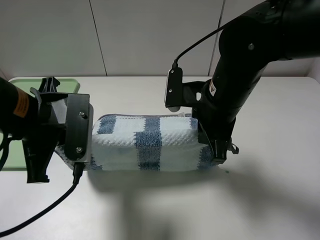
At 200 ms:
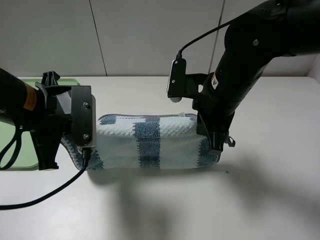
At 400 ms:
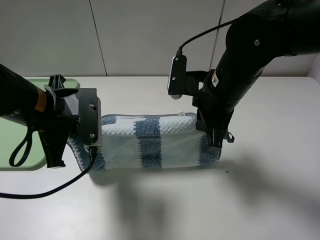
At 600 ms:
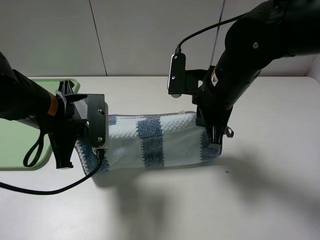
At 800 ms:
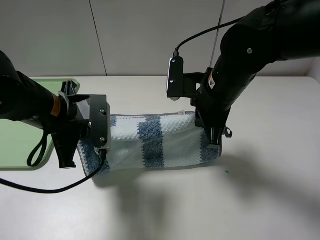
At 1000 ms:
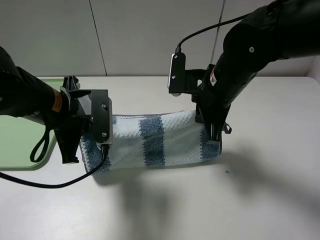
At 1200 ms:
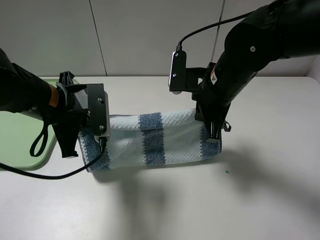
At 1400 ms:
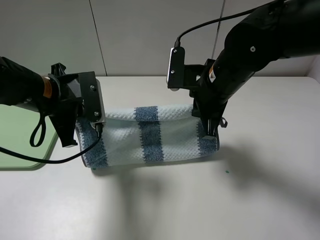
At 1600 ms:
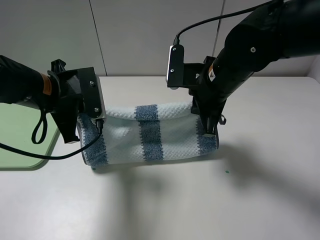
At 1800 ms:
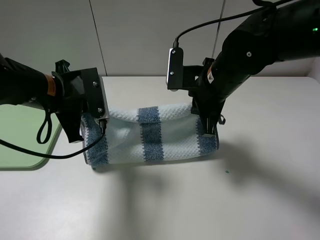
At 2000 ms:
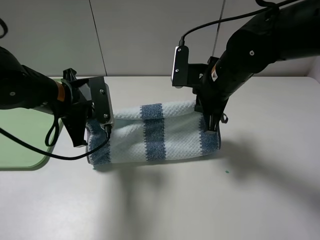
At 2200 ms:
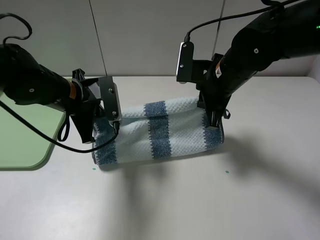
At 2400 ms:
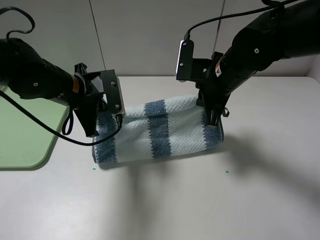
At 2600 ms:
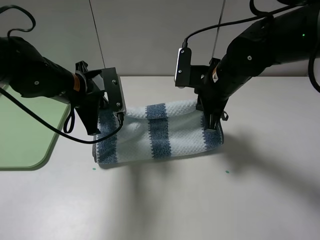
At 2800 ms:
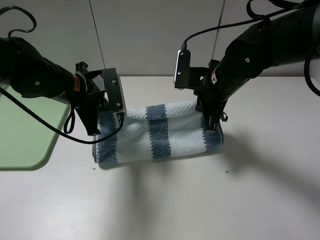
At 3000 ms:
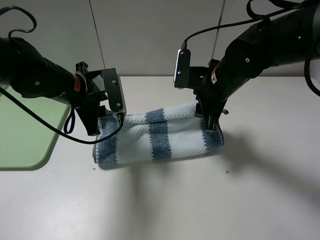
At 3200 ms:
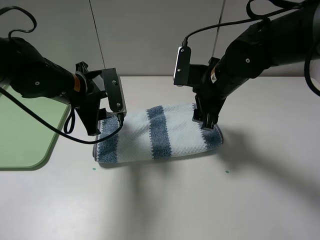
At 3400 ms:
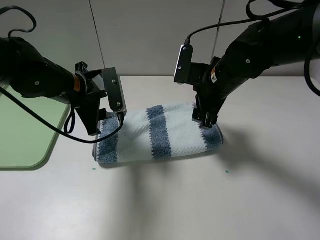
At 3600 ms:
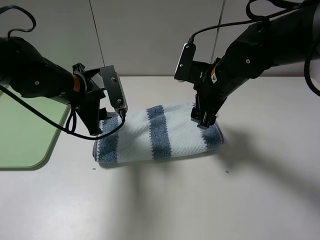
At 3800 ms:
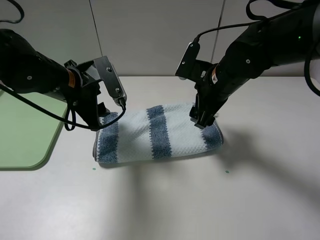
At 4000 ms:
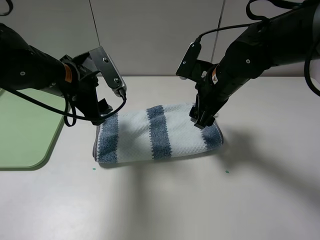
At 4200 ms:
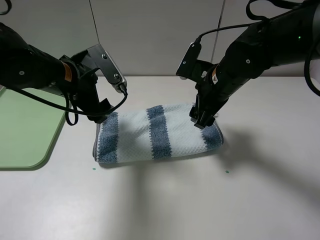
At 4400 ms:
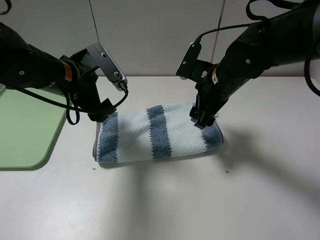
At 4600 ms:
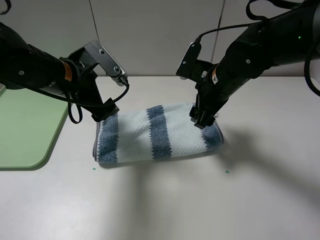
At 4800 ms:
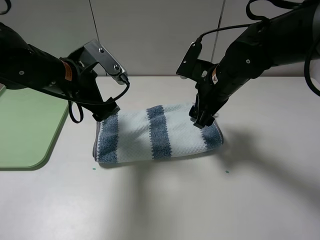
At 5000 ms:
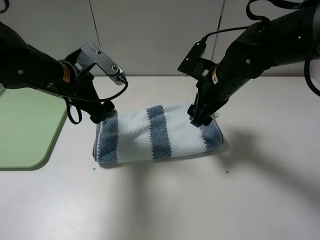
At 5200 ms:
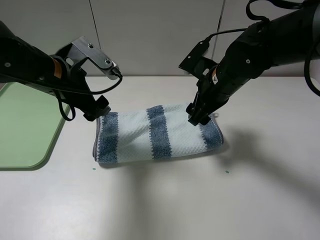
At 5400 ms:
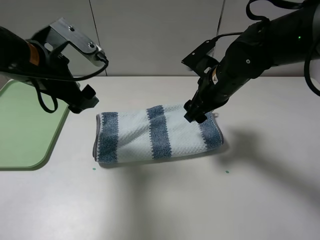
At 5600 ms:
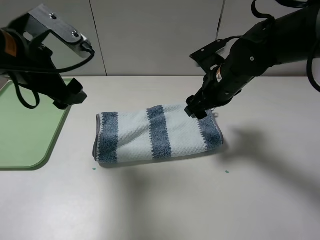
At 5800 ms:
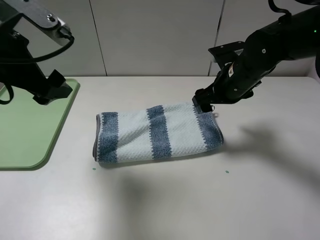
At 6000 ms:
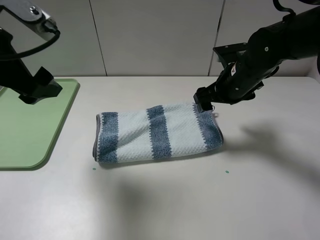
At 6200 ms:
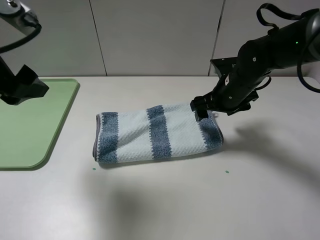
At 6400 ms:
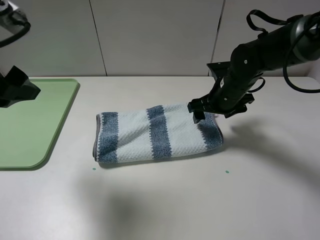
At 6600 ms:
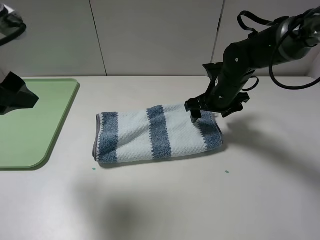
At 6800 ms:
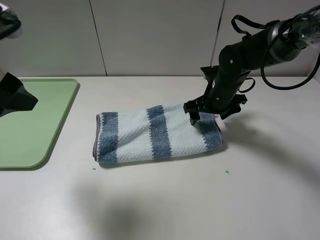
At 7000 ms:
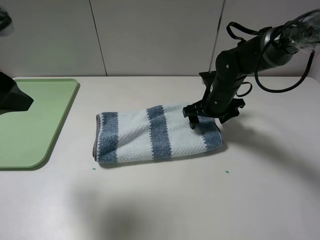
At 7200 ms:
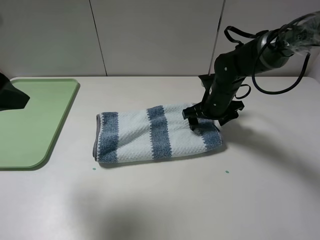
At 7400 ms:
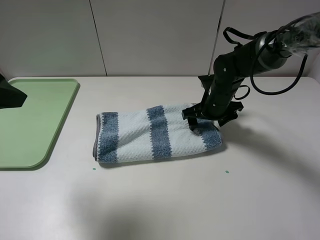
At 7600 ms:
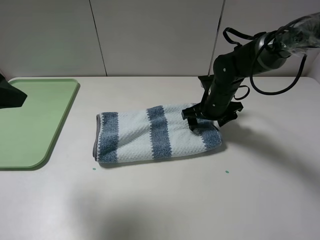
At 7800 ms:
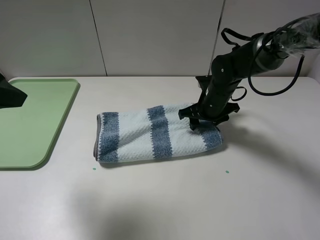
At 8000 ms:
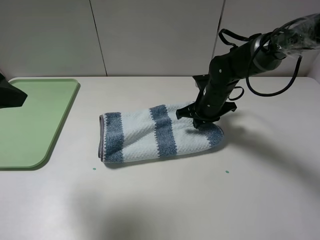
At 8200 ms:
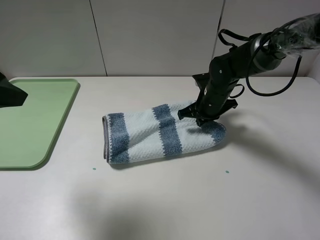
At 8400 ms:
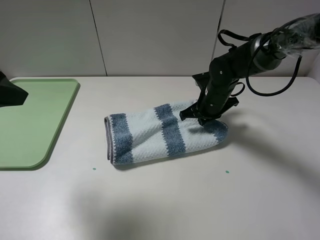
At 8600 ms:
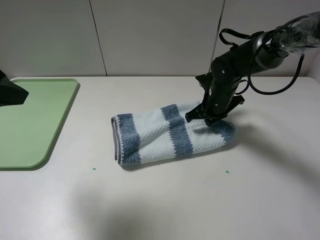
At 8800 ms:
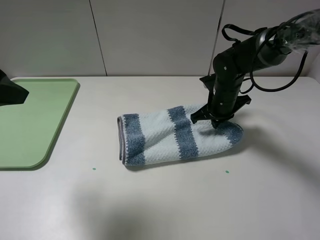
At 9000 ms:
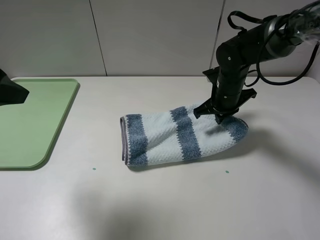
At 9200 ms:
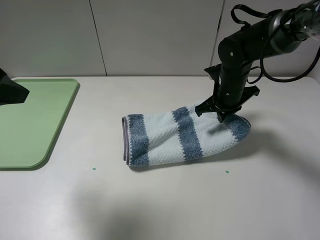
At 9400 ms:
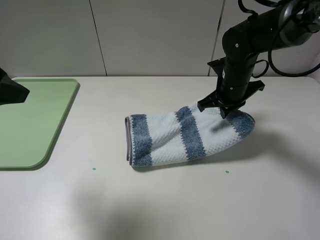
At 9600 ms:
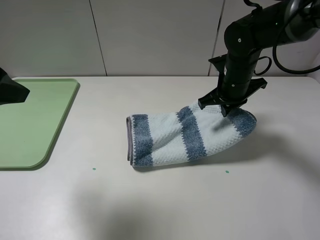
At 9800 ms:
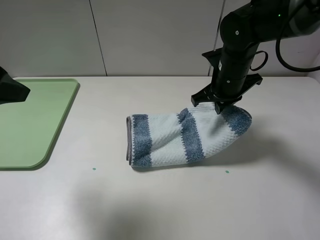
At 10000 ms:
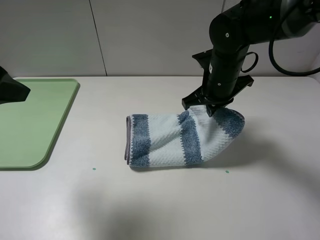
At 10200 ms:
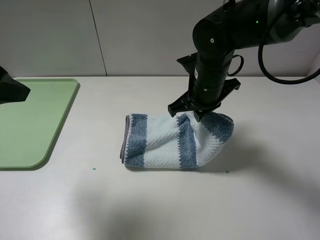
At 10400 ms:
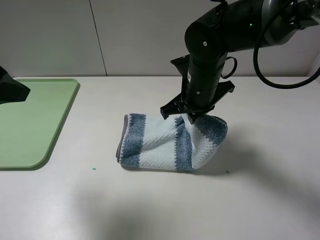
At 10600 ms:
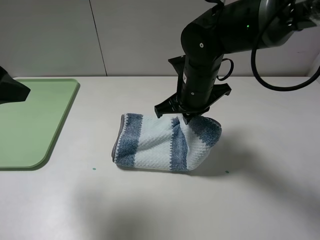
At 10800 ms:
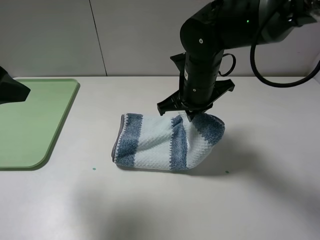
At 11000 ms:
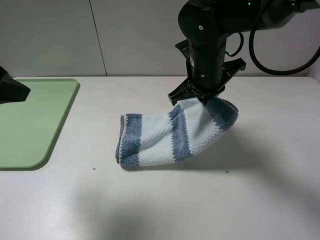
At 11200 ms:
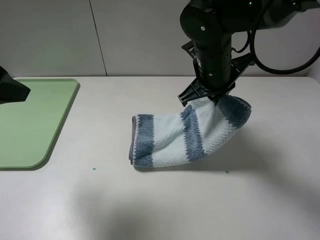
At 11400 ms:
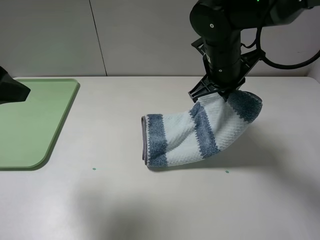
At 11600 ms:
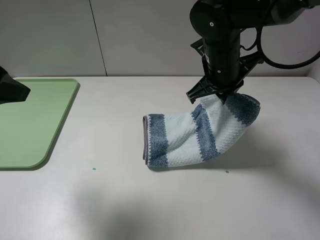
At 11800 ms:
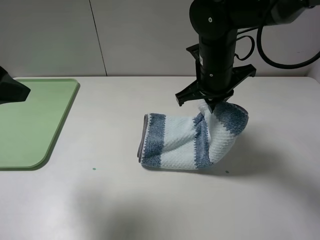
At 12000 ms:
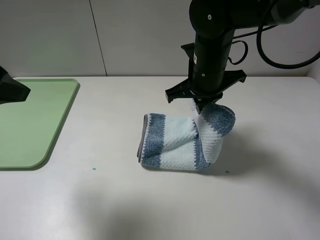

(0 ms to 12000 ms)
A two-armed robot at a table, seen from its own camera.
Step, 0 ms - 3200 ms: Fold the blue white towel upwards with the left gripper.
Step, 3400 ms - 8600 ms: Grasp the blue white towel with the right gripper.
0 ms - 1600 ms: The left gripper moves forward, some 5 cm.
1600 ms - 3000 ms: The left gripper changes place by some 5 cm, and opens up. The right gripper opens up.
3000 ms - 4400 ms: The left gripper opens.
4400 ms - 6000 ms: The left gripper moves upward, backward and to the left, roughly 15 cm.
6000 ms - 7600 ms: The left gripper changes place by approximately 5 cm. Meanwhile the right gripper goes roughly 10 cm downward.
7600 ms - 9000 ms: The right gripper closes up.
9000 ms - 10400 ms: The right gripper goes approximately 10 cm to the left, backward and upward.
10400 ms - 12000 ms: There are only small adjustments of the grippers.

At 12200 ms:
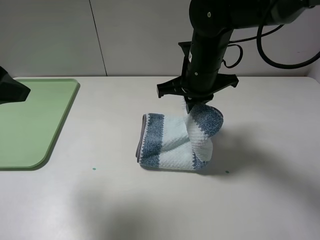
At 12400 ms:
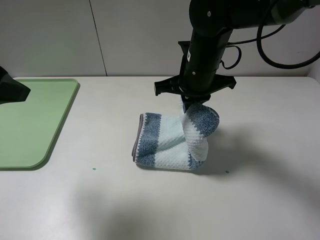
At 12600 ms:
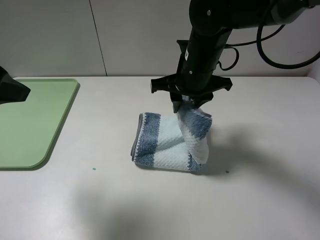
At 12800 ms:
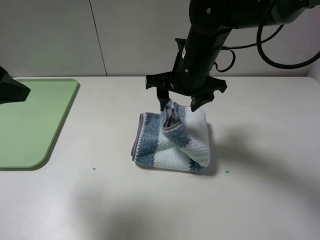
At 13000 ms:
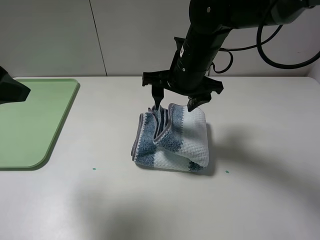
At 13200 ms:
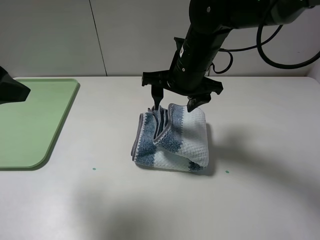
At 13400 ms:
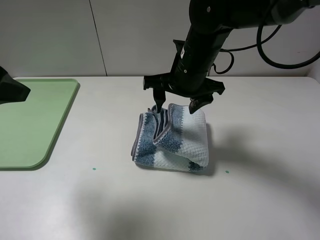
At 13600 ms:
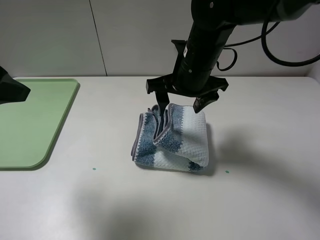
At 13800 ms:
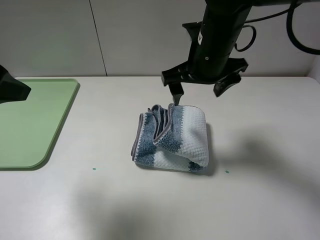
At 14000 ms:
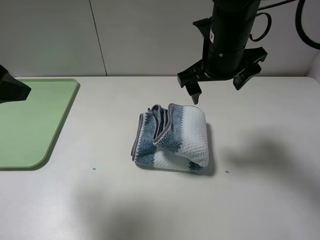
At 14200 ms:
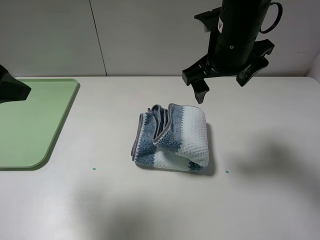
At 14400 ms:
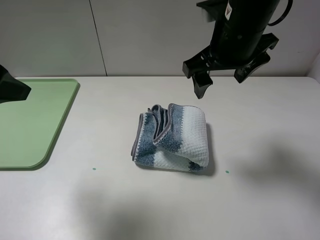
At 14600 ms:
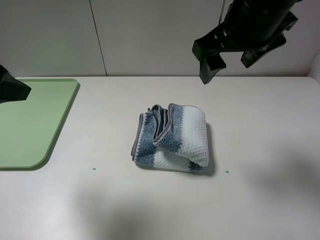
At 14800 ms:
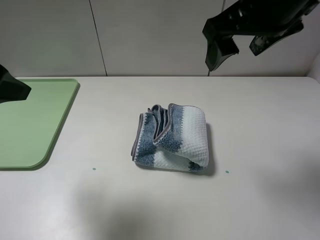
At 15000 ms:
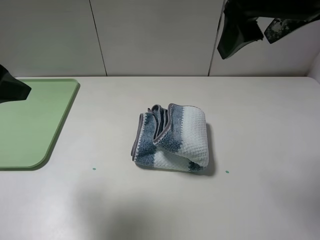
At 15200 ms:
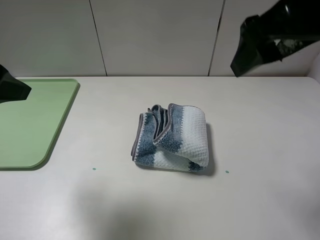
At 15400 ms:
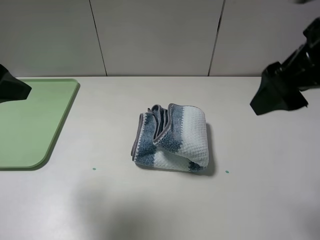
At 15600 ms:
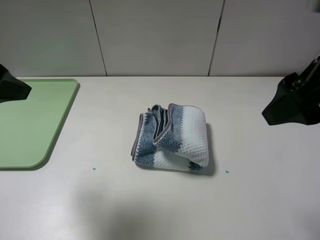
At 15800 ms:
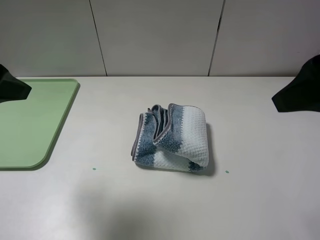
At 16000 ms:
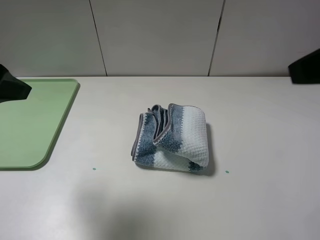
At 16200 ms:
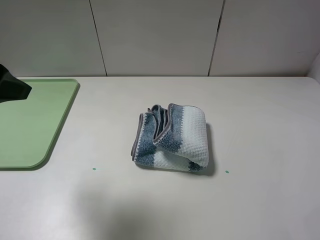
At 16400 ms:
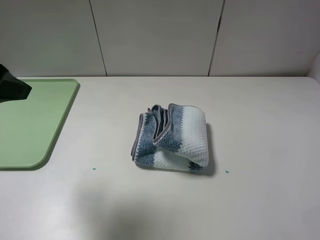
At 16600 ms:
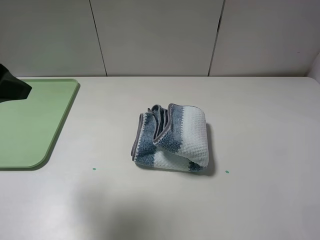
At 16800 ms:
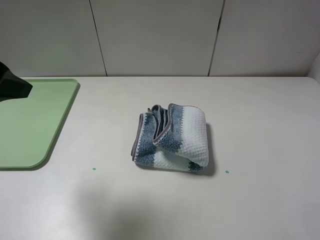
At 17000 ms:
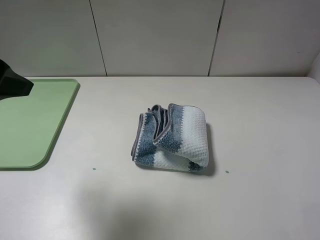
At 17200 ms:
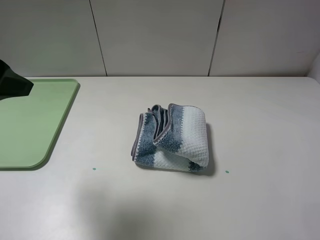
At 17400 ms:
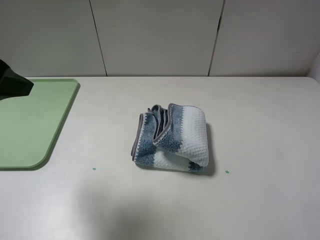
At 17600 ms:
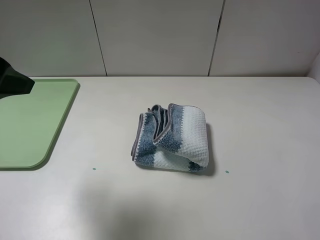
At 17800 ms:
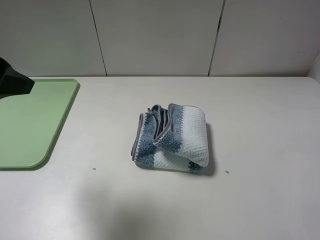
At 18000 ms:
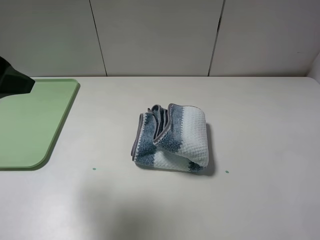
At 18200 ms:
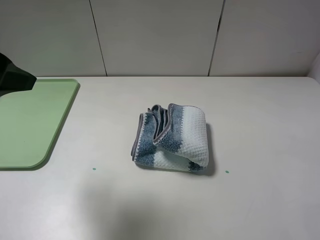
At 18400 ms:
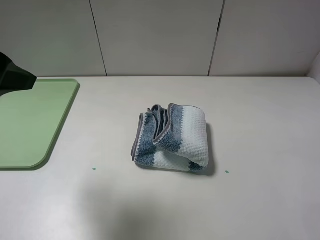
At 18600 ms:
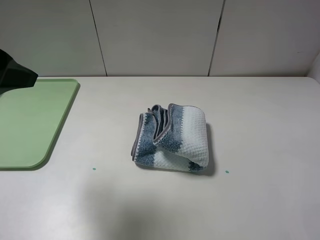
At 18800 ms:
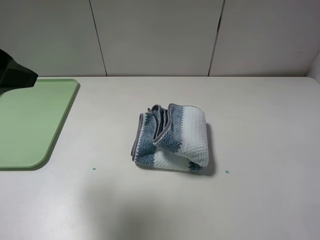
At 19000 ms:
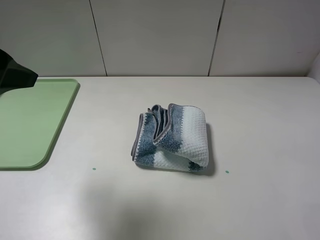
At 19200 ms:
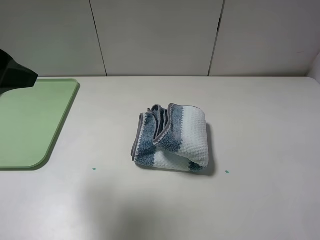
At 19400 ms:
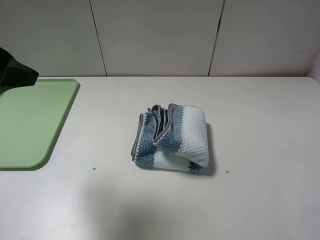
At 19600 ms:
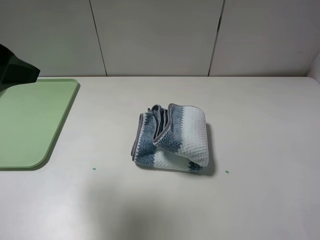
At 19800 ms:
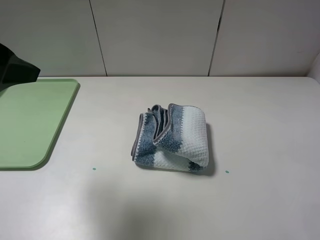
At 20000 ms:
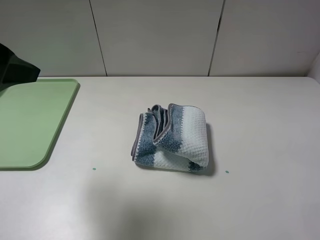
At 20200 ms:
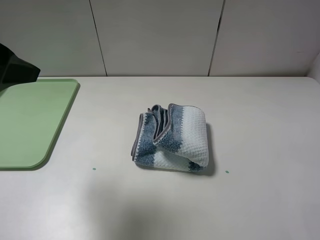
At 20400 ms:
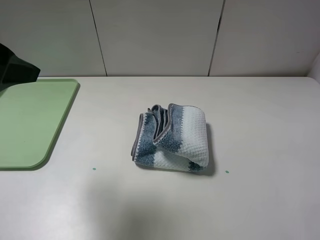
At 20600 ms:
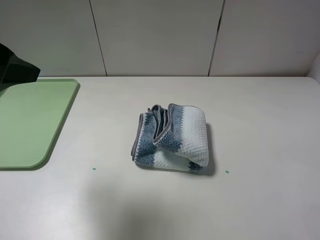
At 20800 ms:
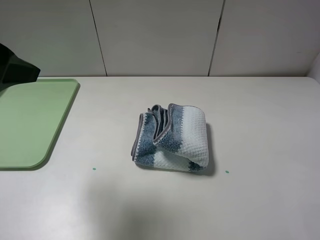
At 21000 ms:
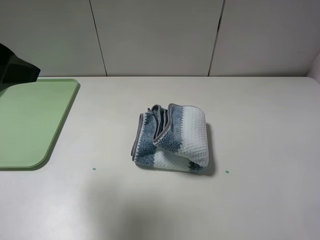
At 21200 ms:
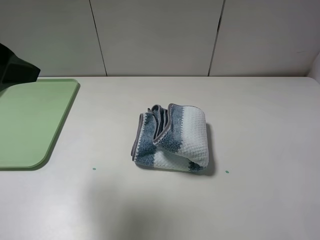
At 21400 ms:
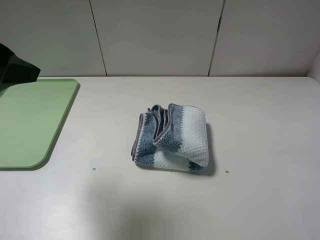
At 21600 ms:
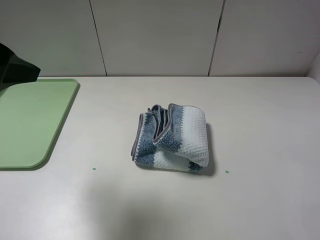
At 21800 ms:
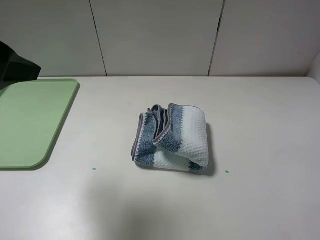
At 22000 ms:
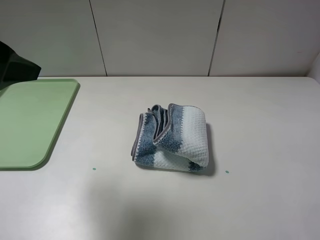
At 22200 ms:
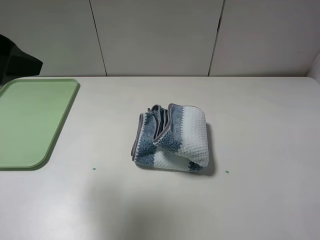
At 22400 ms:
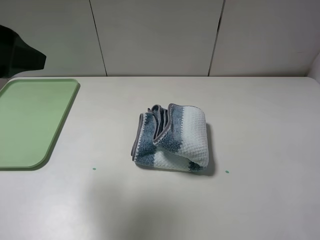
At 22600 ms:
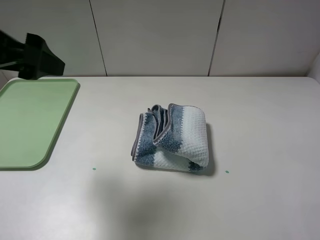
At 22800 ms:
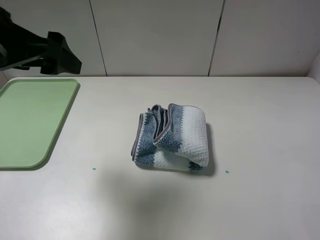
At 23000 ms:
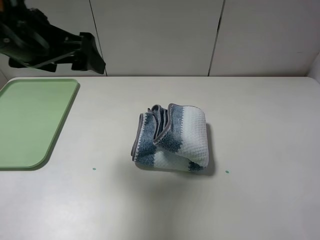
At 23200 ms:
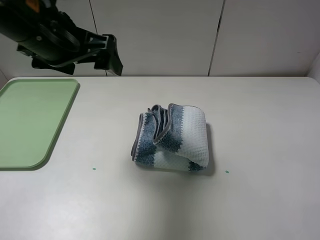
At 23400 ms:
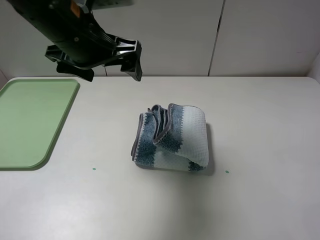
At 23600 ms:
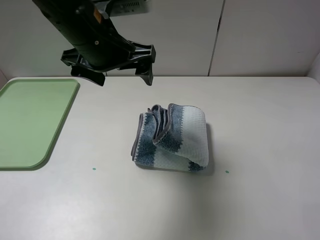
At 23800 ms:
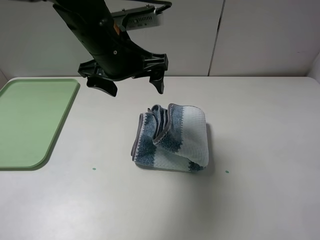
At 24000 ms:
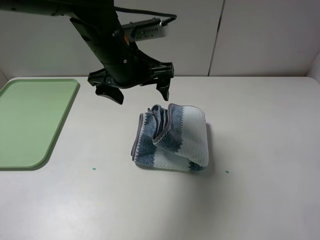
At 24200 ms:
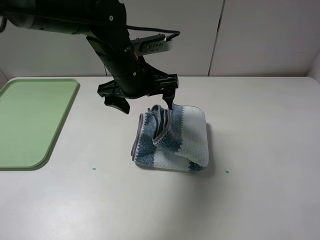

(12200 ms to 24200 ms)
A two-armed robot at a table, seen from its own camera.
Step, 12200 ms - 14600 ms: Fold the blue white towel from right to left with right gripper.
12200 ms - 13800 ms: The right gripper opens up.
13800 ms - 15200 ms: The right gripper travels upward, backward and to the right by approximately 20 cm.
15200 ms - 16600 ms: The right gripper goes some 20 cm backward and to the right.
18200 ms - 21200 ms: Both grippers stay put.
21200 ms - 22600 ms: The grippers make only small movements.
22600 ms - 24200 ms: The left gripper shifts some 25 cm to the right, forward and downward.
